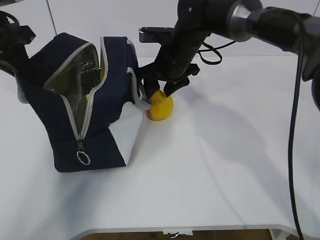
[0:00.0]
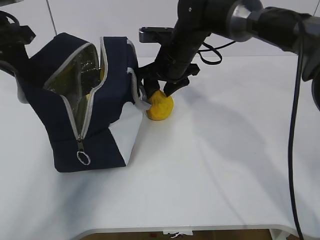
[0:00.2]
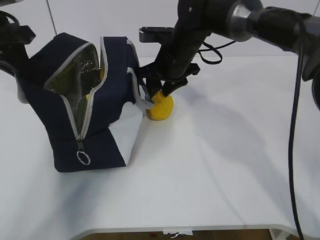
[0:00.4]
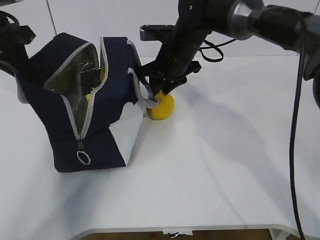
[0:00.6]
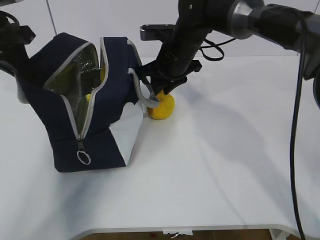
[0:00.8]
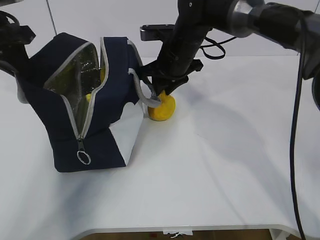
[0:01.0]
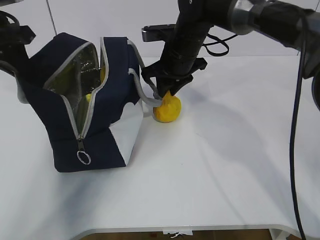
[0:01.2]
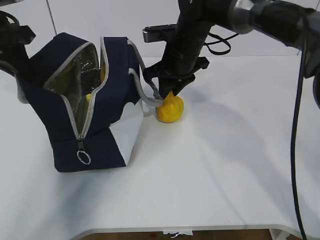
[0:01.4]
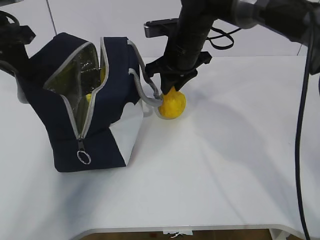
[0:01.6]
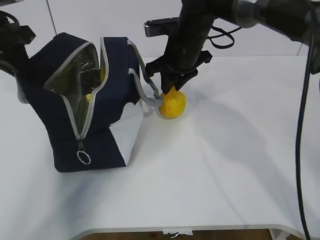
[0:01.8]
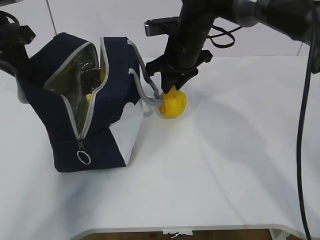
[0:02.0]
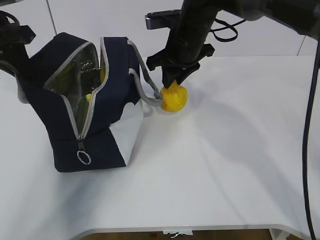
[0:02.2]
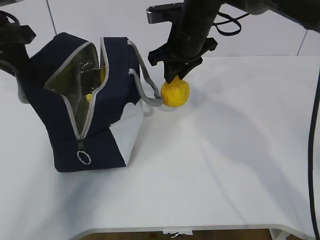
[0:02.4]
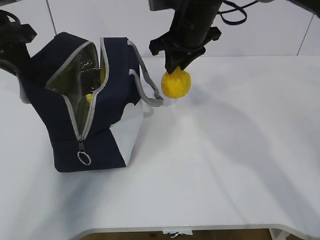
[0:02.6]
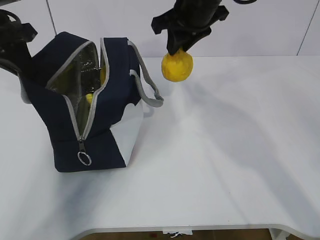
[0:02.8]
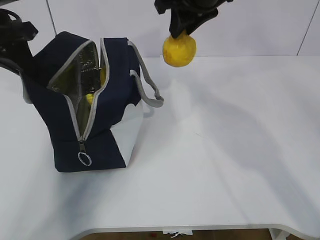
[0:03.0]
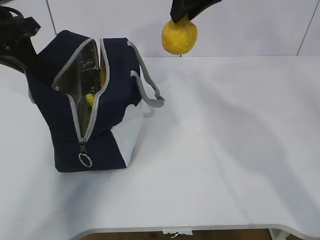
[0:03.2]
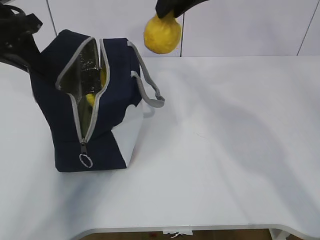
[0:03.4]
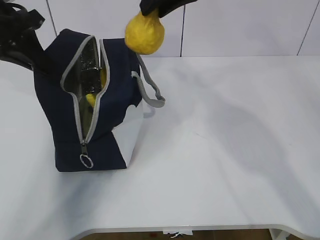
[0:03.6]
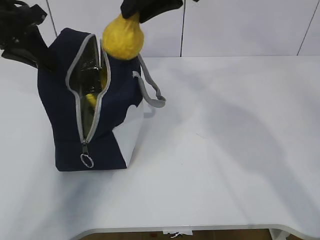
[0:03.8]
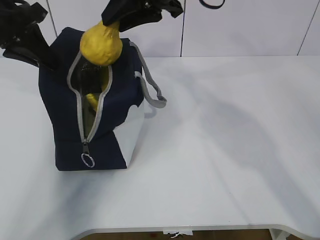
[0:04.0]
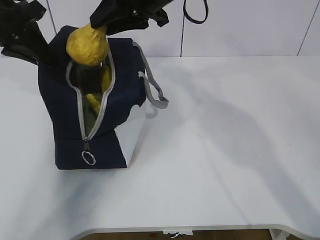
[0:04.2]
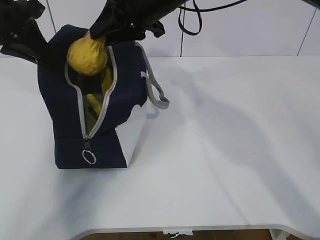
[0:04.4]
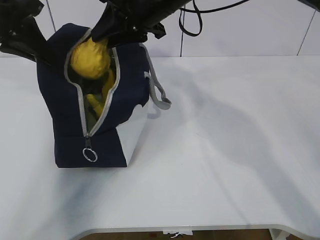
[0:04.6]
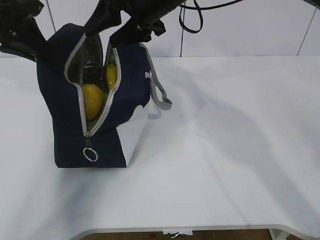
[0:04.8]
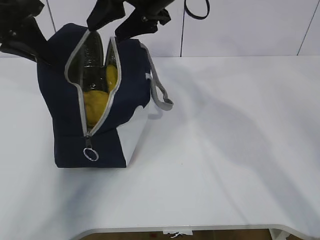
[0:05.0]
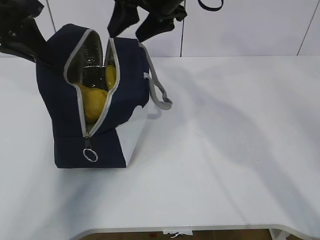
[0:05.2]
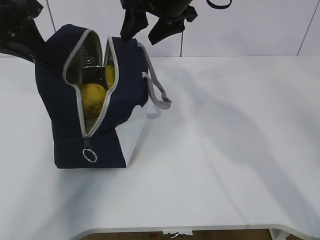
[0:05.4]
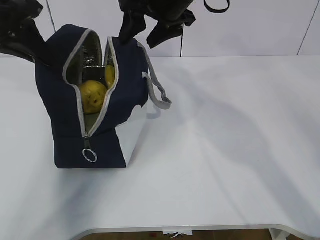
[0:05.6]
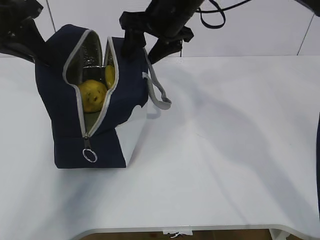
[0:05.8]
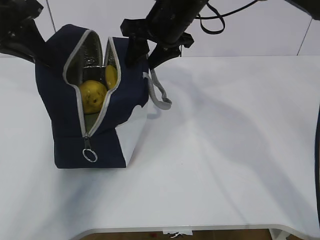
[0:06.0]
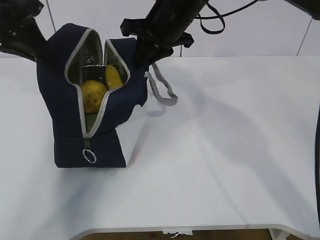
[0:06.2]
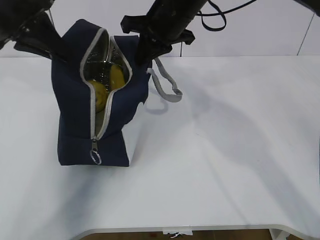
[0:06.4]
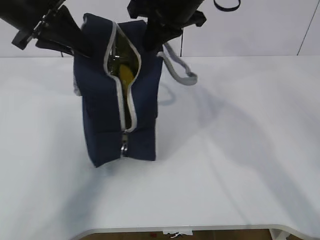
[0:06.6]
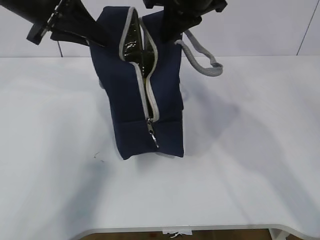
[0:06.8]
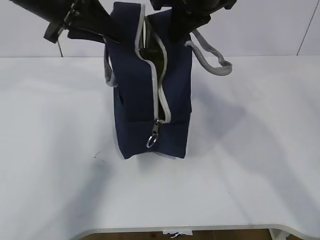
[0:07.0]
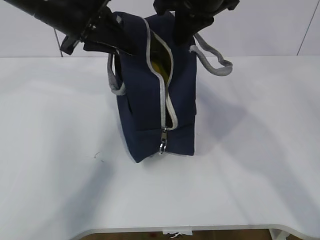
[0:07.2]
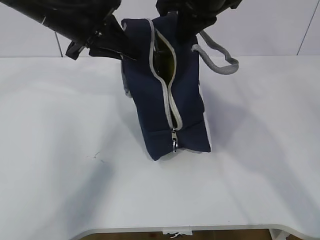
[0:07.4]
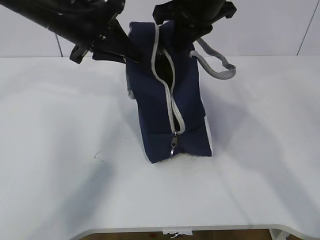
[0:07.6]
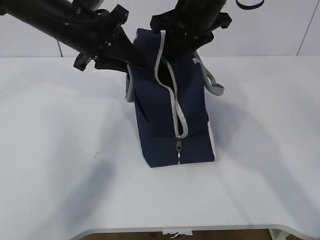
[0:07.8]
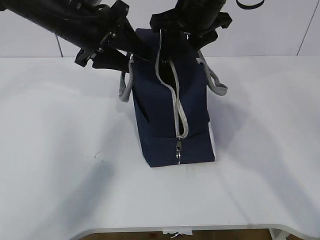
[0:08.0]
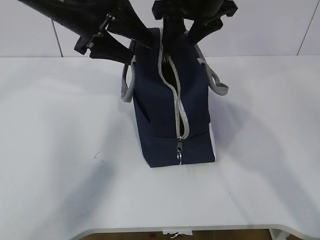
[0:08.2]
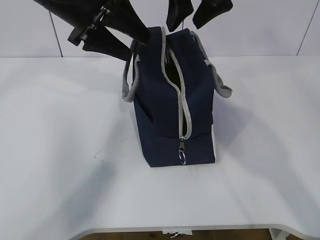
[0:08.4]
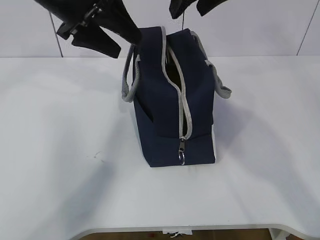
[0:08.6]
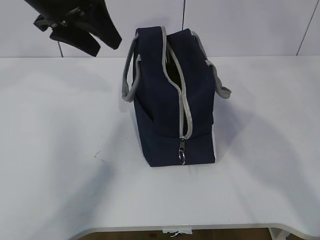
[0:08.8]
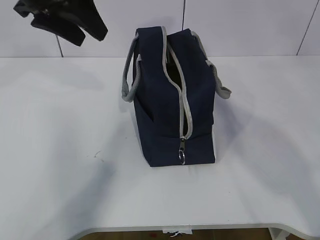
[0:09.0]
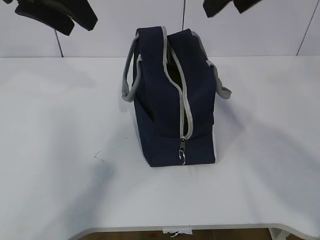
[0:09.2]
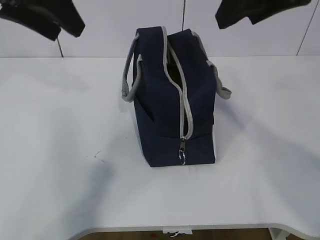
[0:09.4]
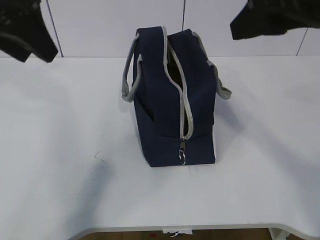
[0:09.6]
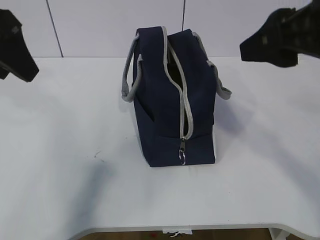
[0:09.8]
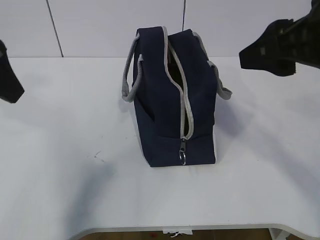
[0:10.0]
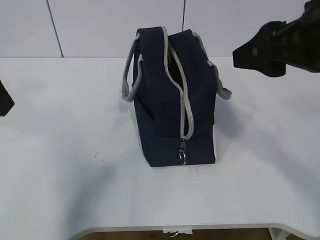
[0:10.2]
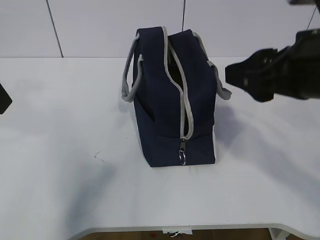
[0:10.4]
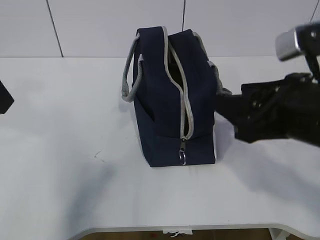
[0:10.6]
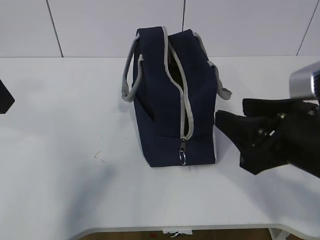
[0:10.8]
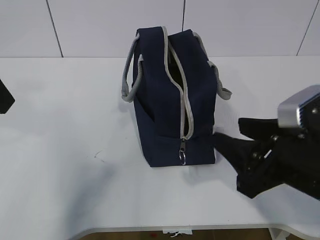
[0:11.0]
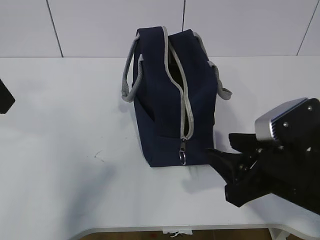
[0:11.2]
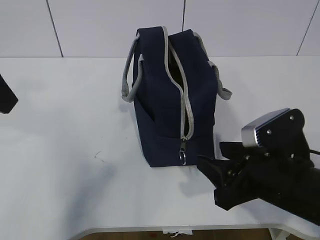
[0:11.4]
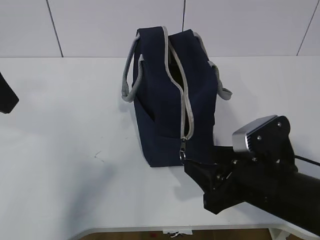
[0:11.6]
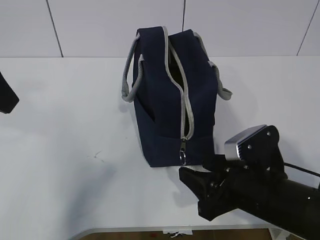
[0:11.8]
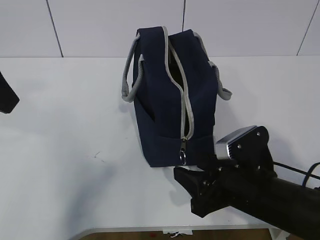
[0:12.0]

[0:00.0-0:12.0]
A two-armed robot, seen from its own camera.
Step, 0:01.4 to 0:05.0: Place the pear into the package with the right gripper.
0:00.0 to 0:01.6: The right gripper closes up.
0:01.6 to 0:03.0: The right gripper moves upward, some 15 cm.
0:03.0 to 0:04.4: The right gripper travels to the left by roughly 5 cm.
0:04.4 to 0:06.0: The right gripper opens up.
0:06.0 to 0:07.6: The left gripper travels to the right by some 10 cm. The right gripper changes place by approximately 5 cm, and closes its fingers.
0:07.6 to 0:09.0: The right gripper is displaced upward and backward by about 10 cm, and opens up, while the left gripper moves upward, approximately 5 cm, and opens its fingers.
0:09.0 to 0:10.4: The right gripper moves downward and backward, roughly 20 cm; the left gripper shifts about 15 cm backward and to the left.
0:10.4 to 0:12.0: The right gripper travels downward by roughly 20 cm.

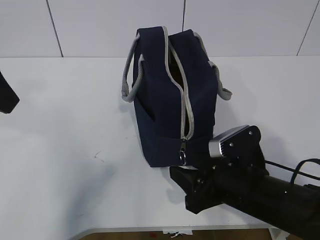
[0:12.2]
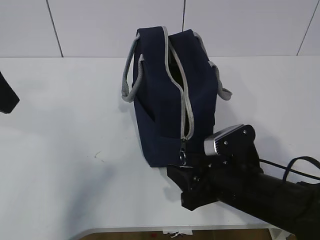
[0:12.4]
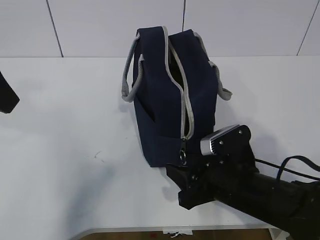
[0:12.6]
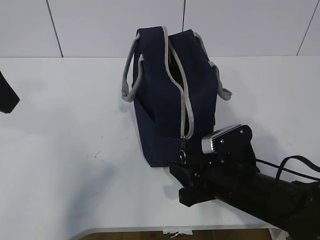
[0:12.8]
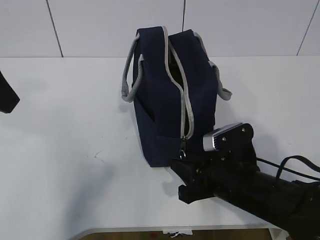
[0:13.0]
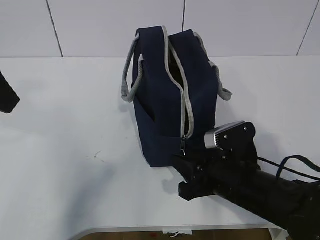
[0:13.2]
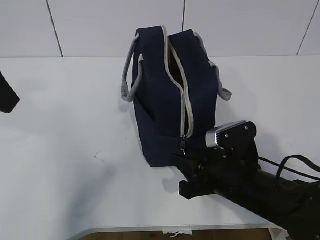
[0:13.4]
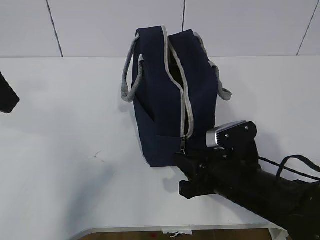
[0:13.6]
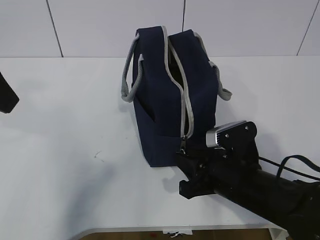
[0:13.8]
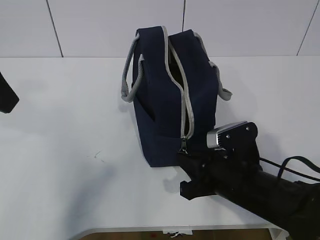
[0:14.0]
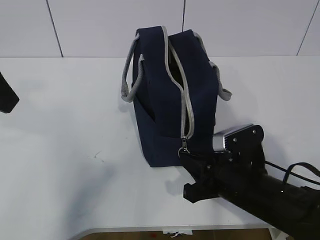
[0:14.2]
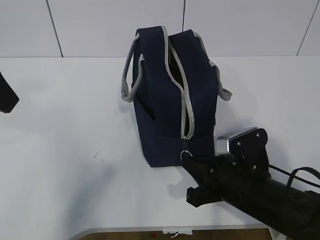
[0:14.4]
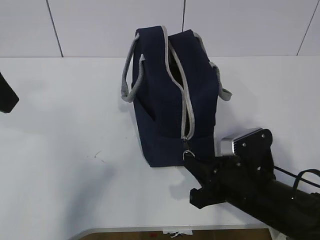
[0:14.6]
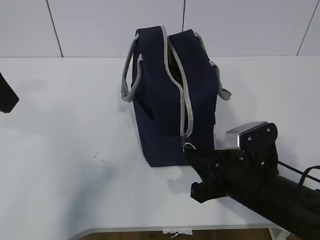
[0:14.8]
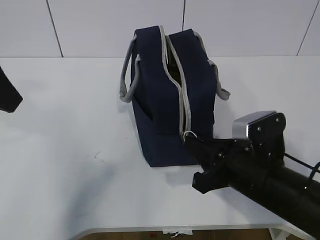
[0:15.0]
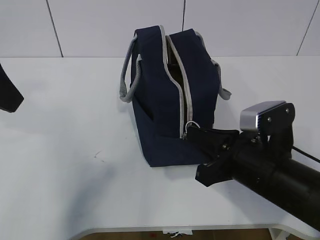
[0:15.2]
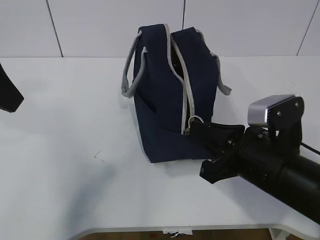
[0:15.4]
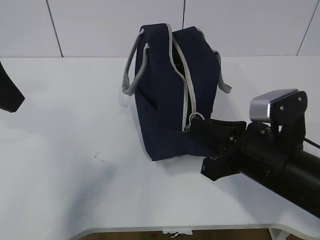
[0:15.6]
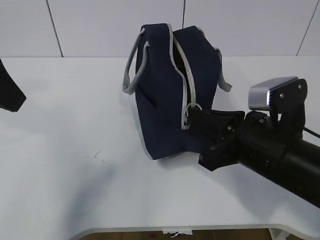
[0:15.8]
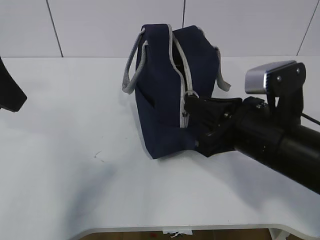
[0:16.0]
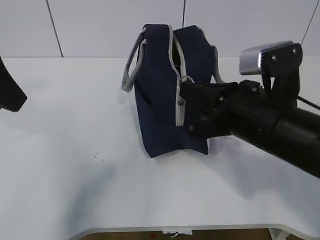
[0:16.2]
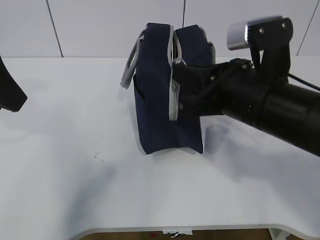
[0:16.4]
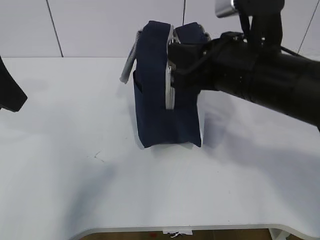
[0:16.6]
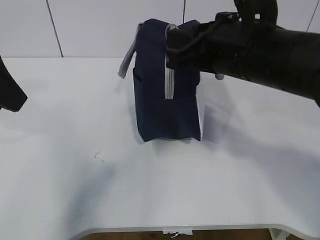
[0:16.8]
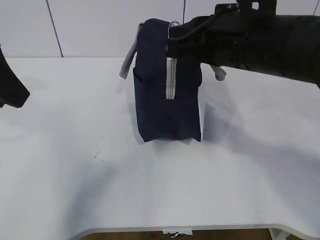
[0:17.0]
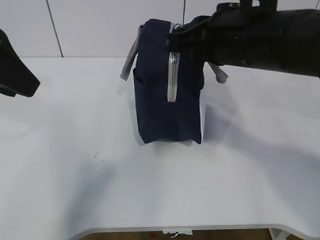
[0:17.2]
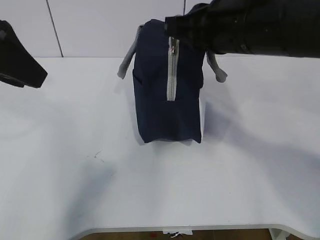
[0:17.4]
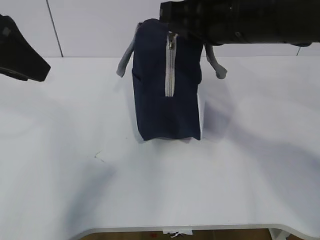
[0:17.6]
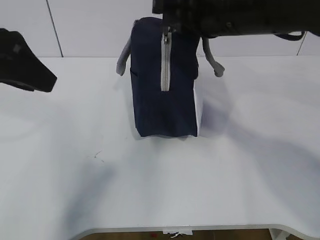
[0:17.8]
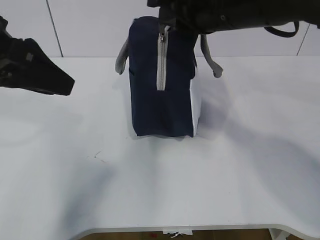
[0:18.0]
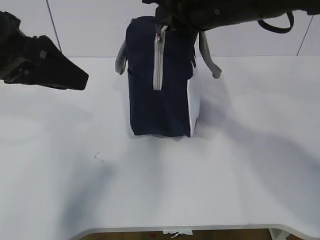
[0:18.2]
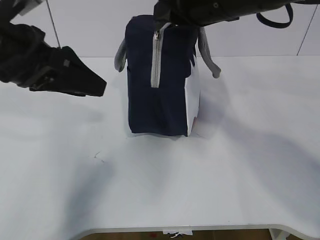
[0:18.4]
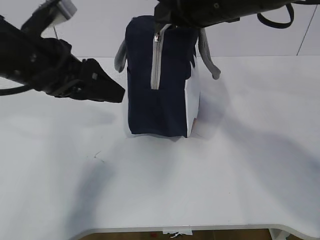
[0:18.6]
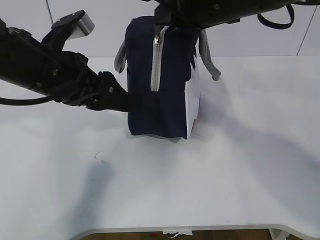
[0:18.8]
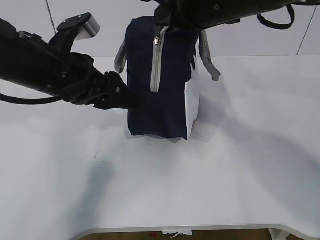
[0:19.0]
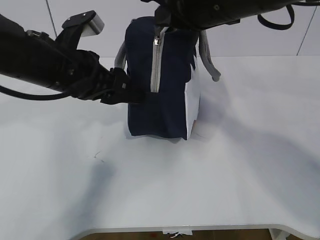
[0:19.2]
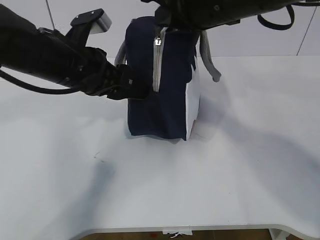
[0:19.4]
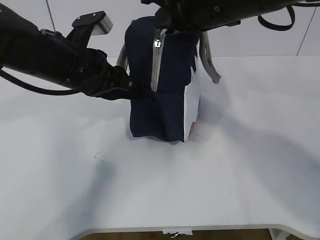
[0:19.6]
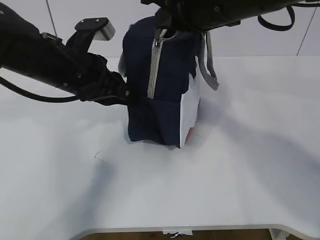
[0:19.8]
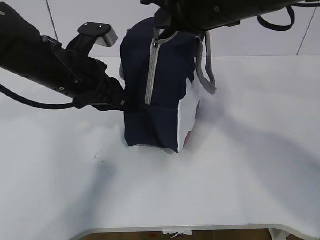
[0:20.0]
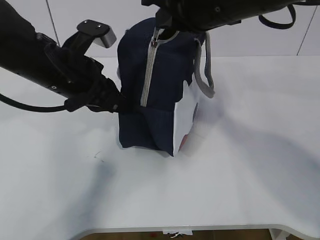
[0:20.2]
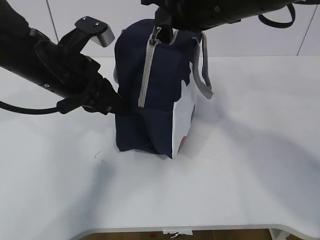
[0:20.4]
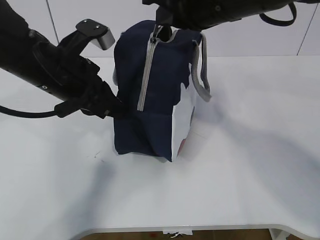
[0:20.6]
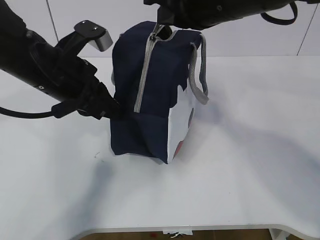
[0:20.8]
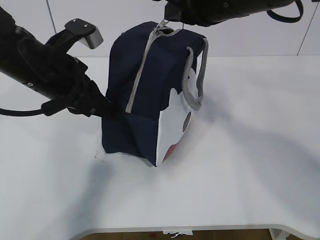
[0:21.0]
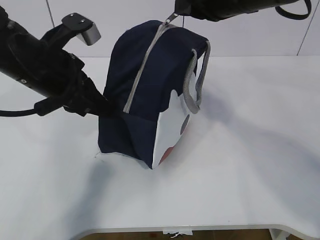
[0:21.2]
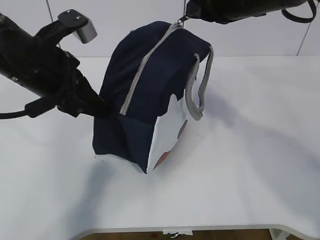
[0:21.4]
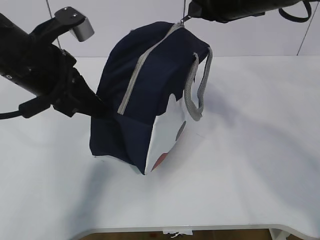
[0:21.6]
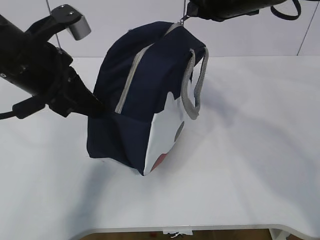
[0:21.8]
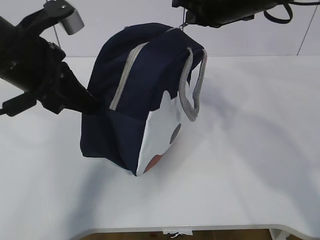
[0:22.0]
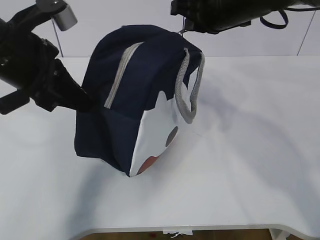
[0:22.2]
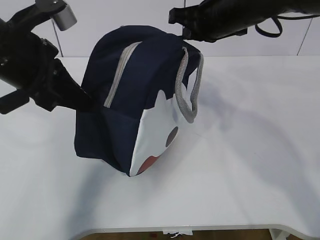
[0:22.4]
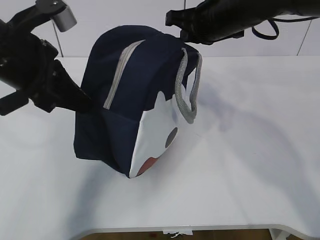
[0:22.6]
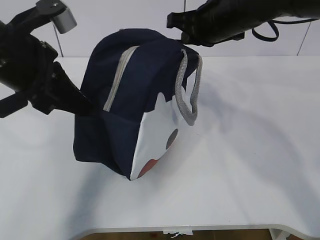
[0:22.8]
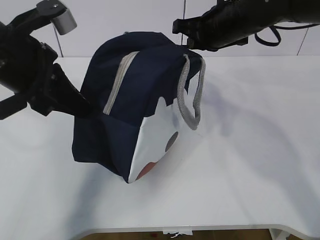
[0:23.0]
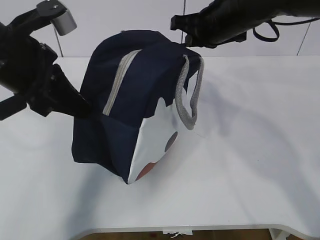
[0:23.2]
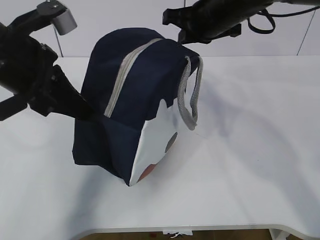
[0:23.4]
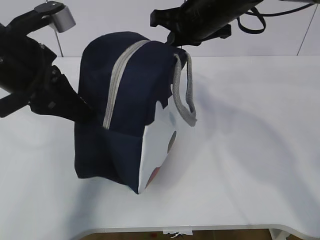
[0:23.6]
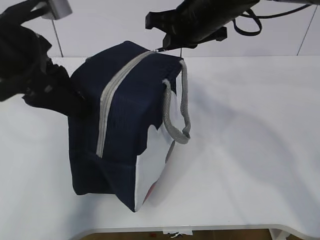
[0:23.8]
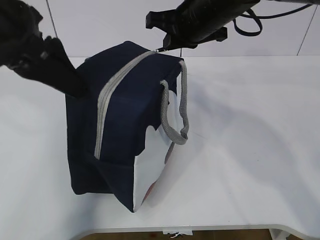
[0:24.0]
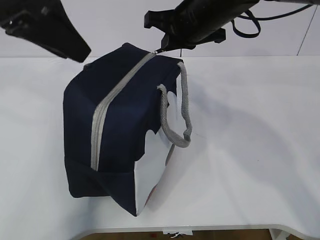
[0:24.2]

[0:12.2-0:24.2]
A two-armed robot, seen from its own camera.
0:12.2 to 0:13.8: The right gripper closes up.
0:13.8 to 0:15.2: The right gripper moves upward, some 5 cm.
0:15.2 to 0:16.6: The right gripper is displaced upward by about 10 cm.
0:16.6 to 0:18.2: The right gripper moves upward and forward, roughly 10 cm.
0:18.2 to 0:19.8: The left gripper goes about 15 cm downward, forward and to the right, and closes its fingers.
0:19.8 to 0:21.2: There are only small adjustments of the grippers.
0:21.2 to 0:22.6: The right gripper travels forward and downward by roughly 10 cm.
0:22.6 to 0:24.2: The left gripper is displaced upward by approximately 10 cm, and opens its fingers.
